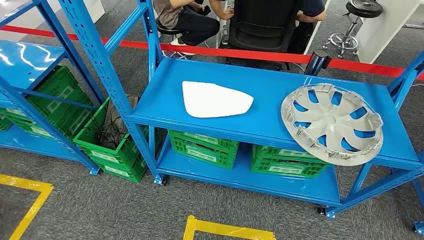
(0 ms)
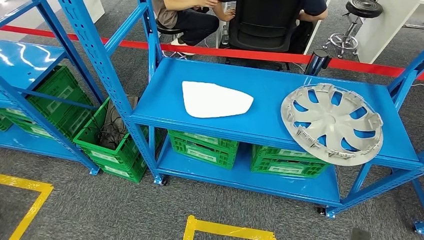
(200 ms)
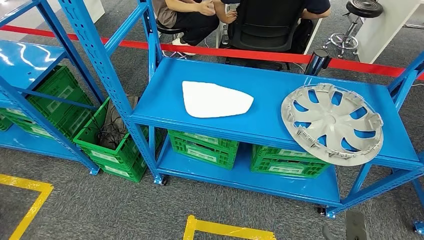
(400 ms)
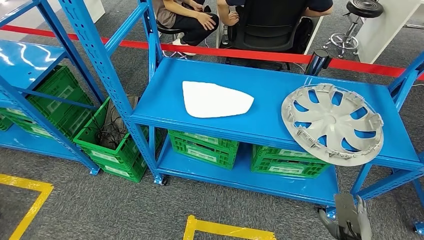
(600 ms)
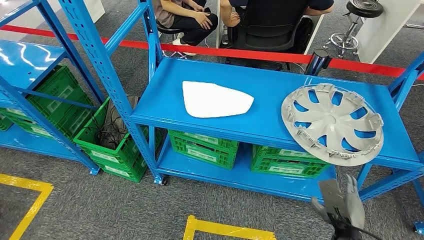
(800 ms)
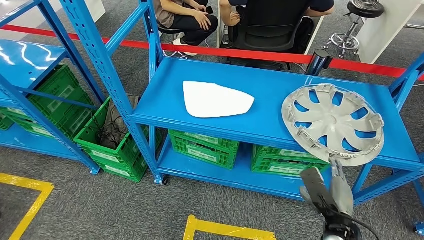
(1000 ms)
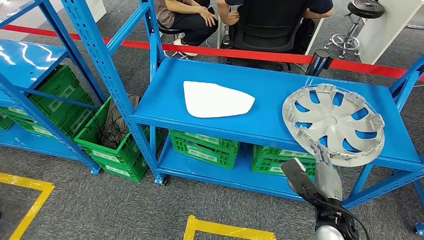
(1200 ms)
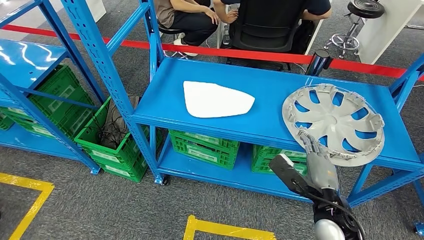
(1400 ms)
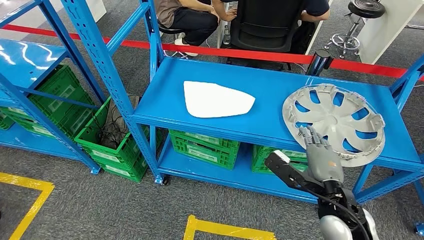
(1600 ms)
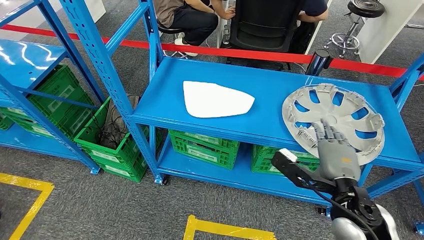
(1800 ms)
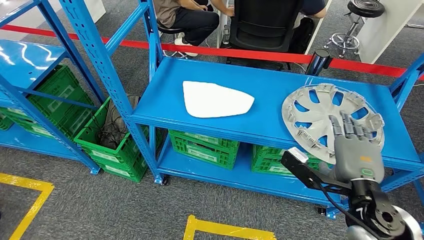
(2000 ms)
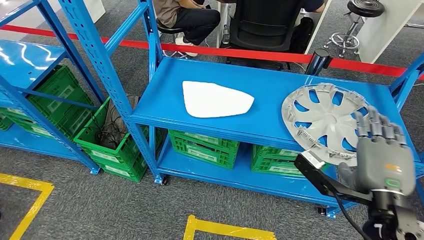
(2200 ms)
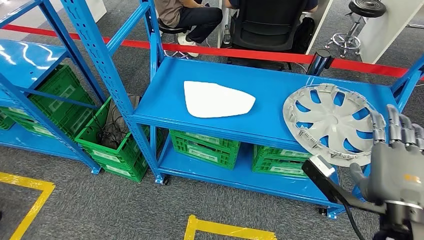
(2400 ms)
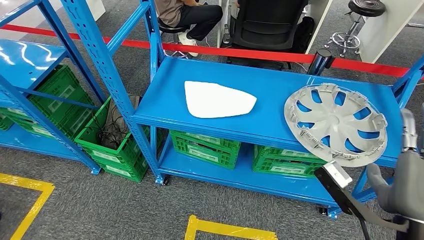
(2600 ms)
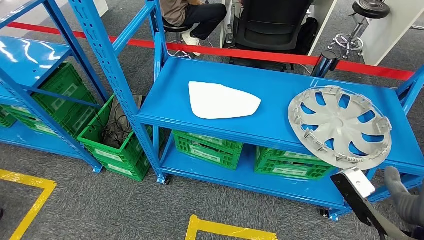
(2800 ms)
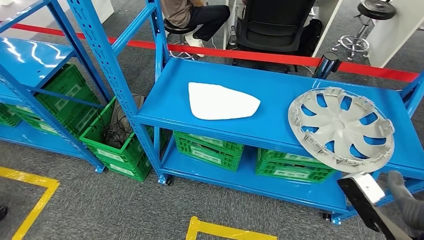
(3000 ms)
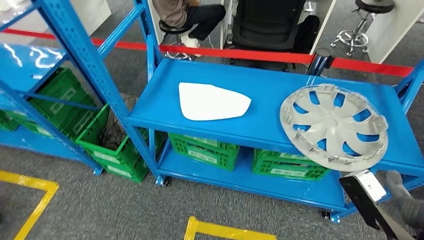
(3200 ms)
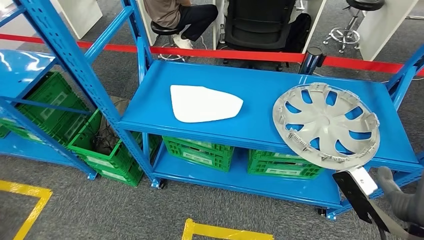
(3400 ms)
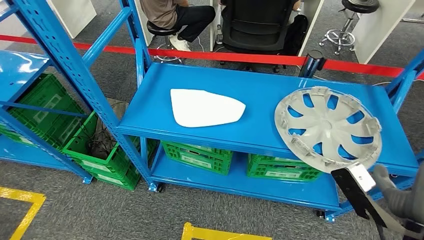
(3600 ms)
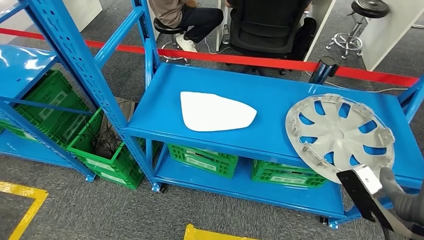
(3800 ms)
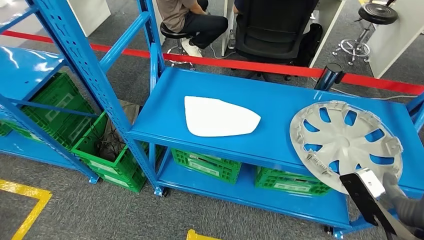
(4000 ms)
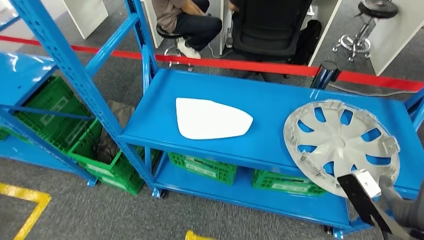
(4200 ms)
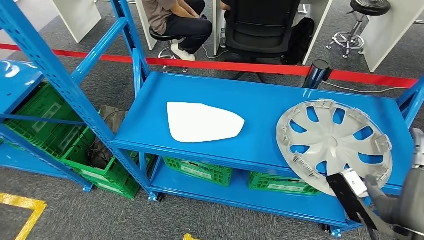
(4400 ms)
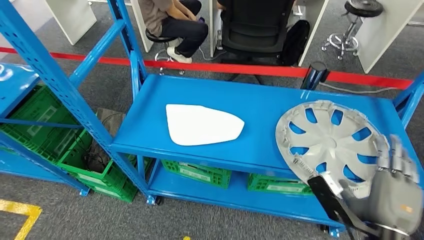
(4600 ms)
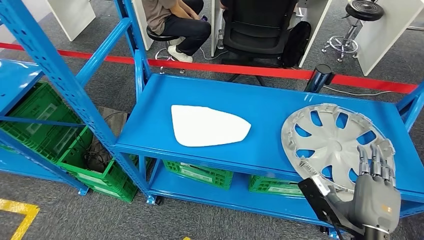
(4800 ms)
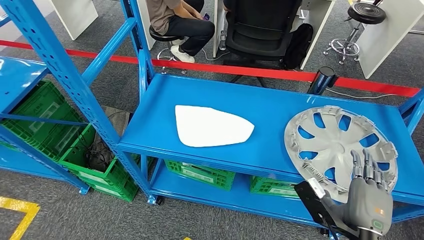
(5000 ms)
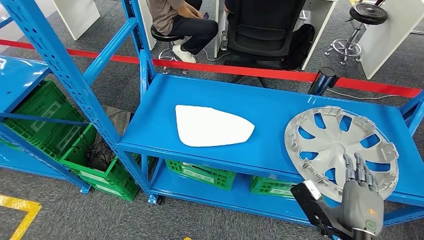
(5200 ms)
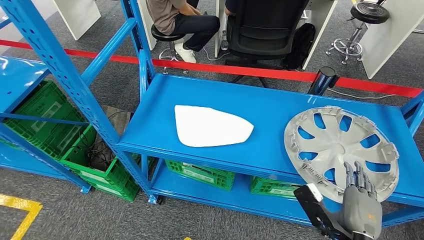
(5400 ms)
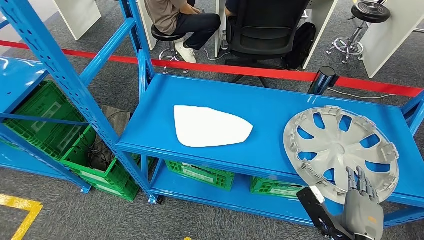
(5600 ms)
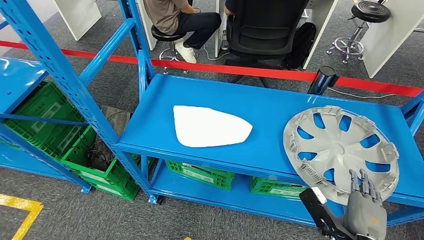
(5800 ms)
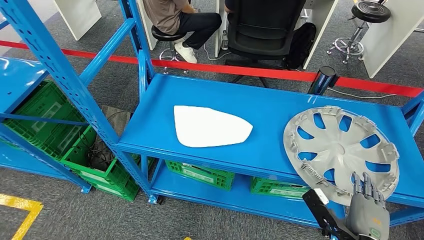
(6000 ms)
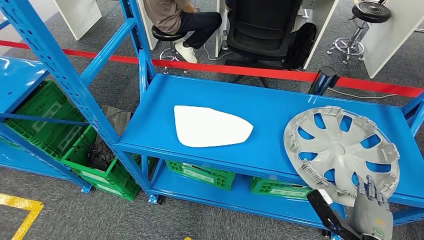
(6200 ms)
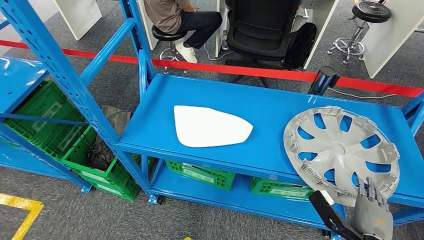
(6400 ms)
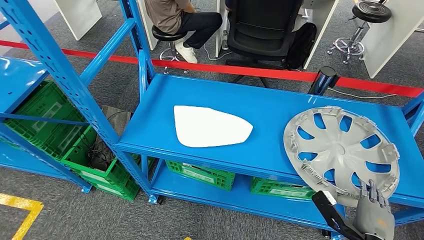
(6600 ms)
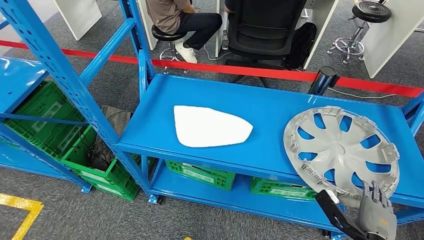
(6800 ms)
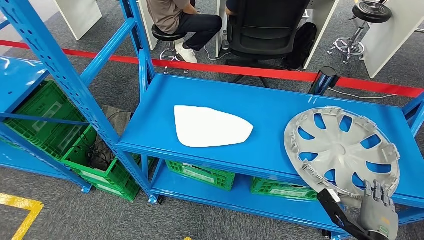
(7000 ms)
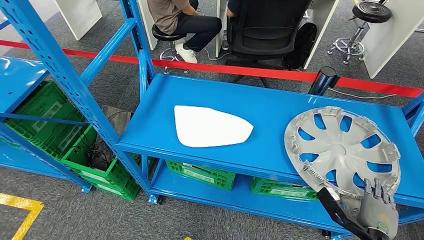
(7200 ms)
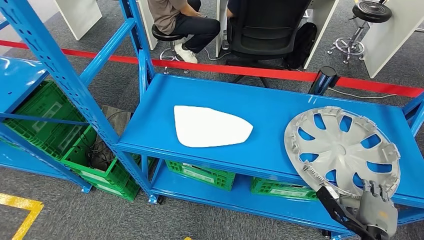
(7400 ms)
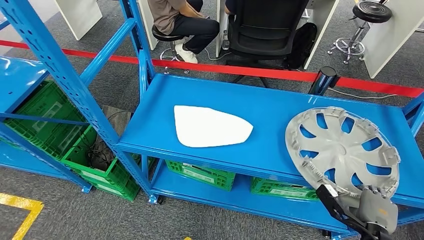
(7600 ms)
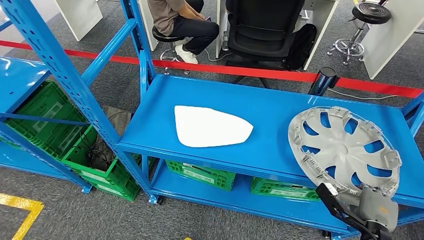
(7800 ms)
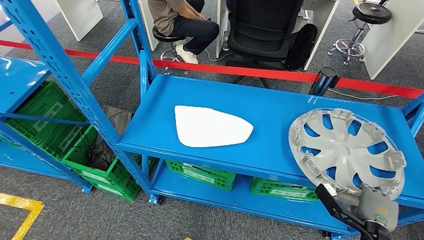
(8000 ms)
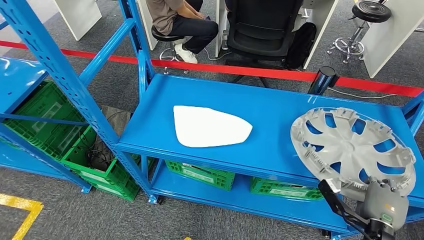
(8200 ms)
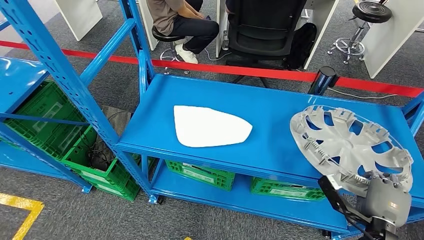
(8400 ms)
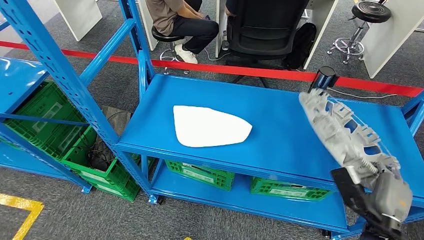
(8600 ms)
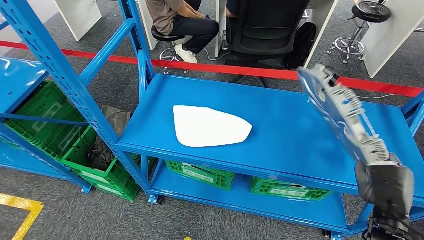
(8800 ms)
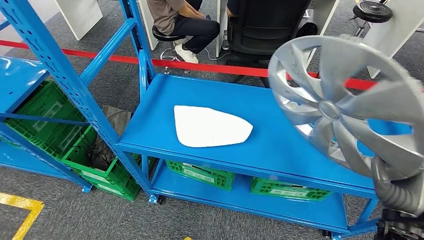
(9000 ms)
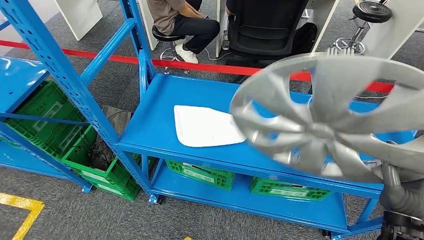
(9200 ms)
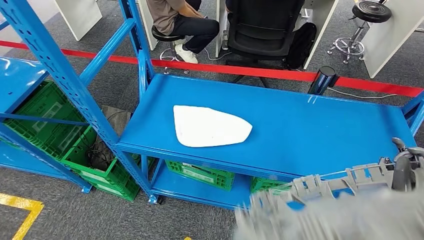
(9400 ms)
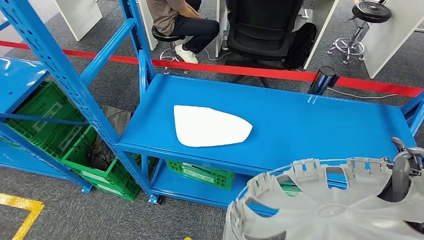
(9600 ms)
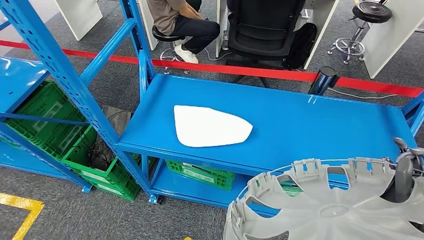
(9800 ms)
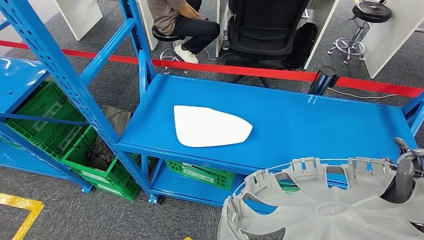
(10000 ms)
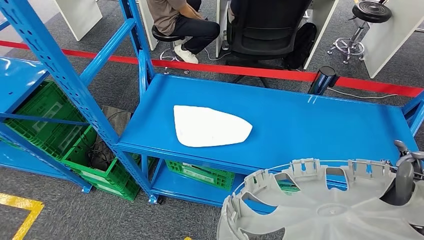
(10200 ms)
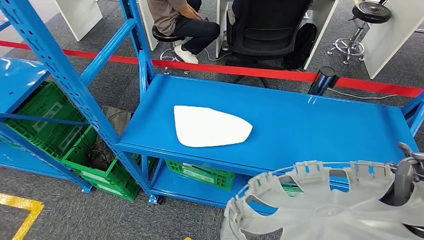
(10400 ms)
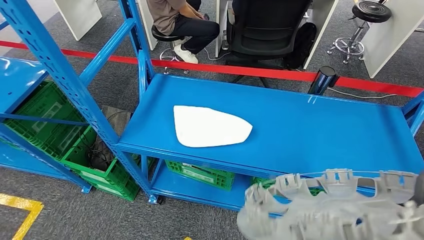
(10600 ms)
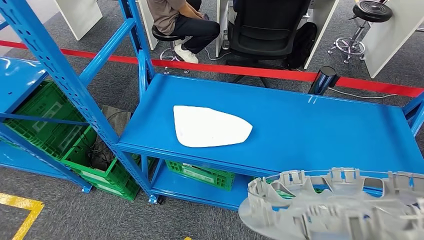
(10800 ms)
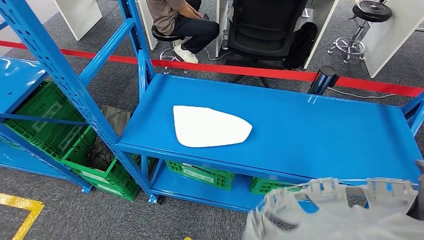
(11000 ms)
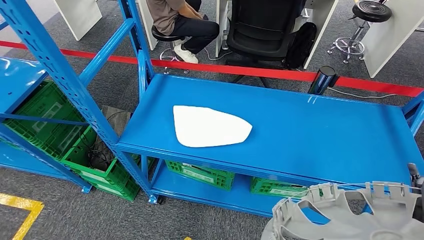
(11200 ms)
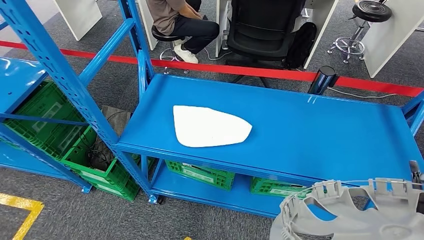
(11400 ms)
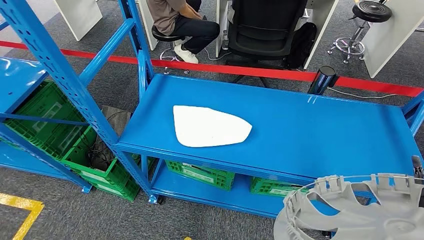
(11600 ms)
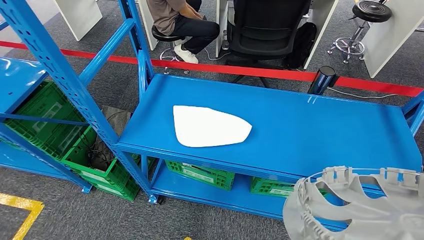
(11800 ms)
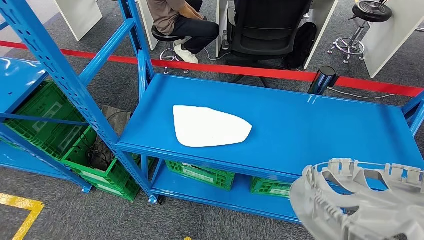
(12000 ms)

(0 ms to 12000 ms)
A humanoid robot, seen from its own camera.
Step, 0 ms - 8800 ms: Pick up the small component from the shelf.
6000 ms - 7600 ms: The right hand travels to the right and forward by roughly 10 cm.
7600 ms - 9000 ms: The right hand shifts approximately 10 cm upward.
10400 ms - 12000 ms: The right hand travels to the right by roughly 5 cm.

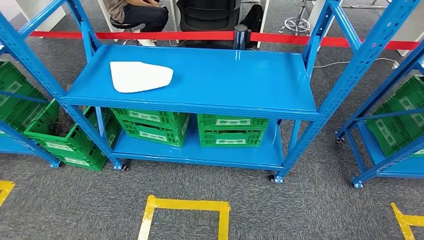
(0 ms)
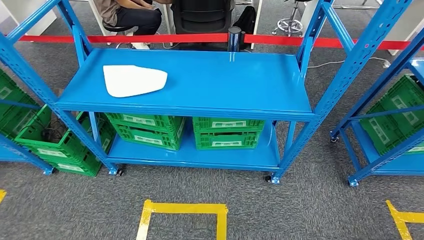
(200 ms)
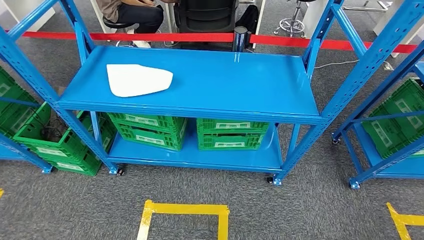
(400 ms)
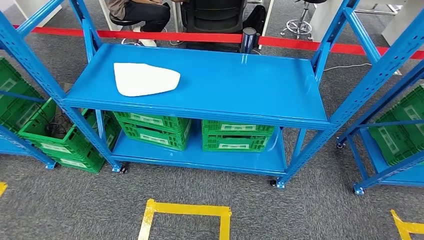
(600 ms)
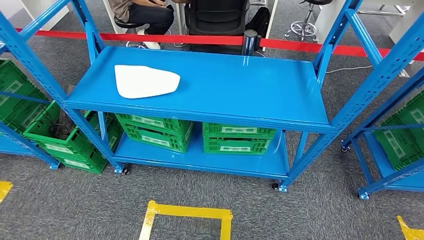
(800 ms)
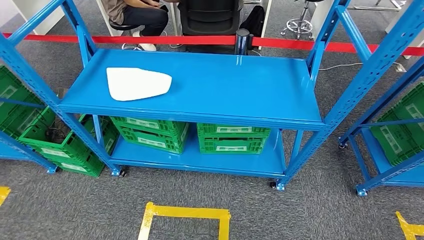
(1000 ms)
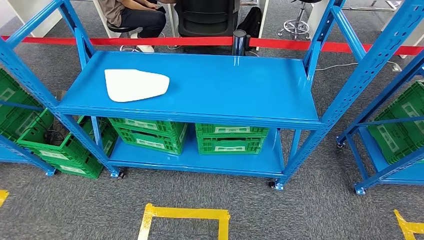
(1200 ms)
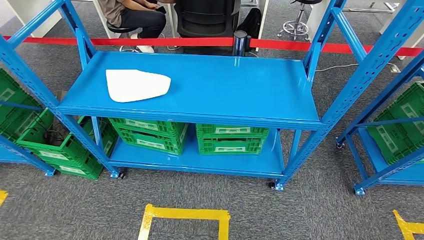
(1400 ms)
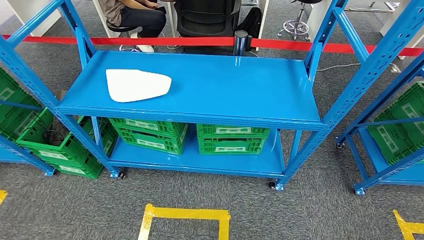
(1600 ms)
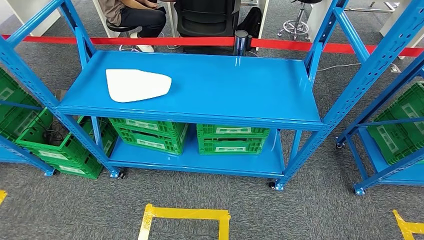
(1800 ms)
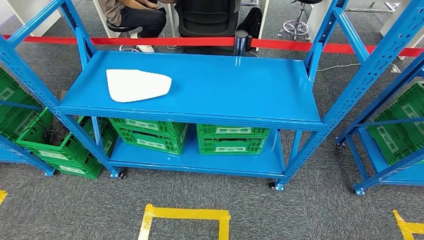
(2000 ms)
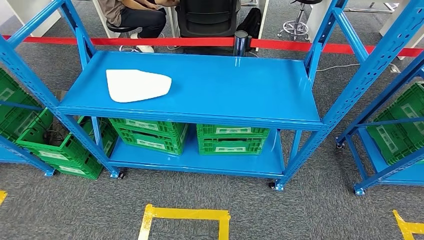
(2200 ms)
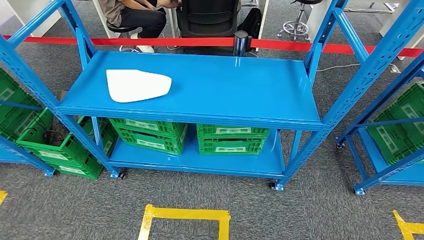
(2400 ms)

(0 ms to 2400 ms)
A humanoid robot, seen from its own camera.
Step, 0 ms - 2400 ms: Return to the initial position at the workbench.
1200 ms - 2400 ms: Both hands move backward, roughly 5 cm.
